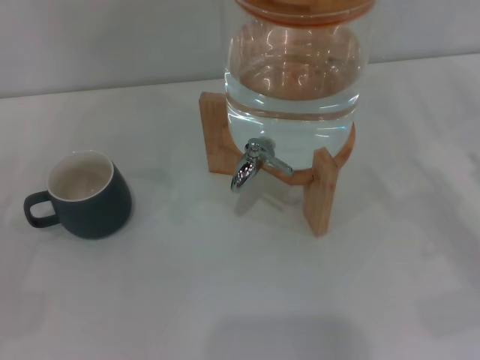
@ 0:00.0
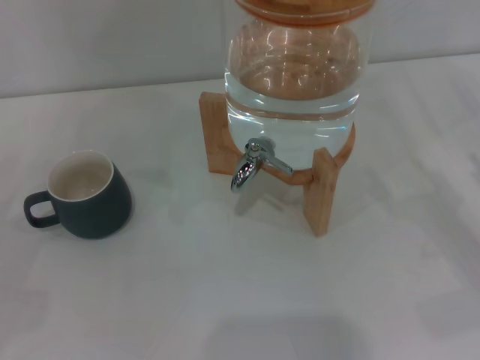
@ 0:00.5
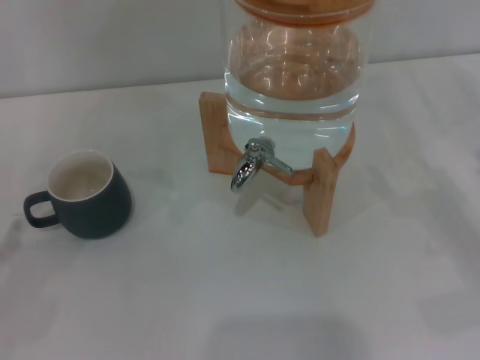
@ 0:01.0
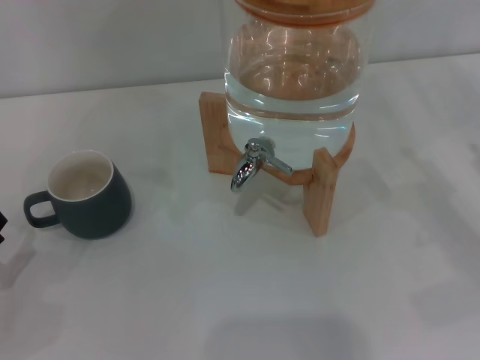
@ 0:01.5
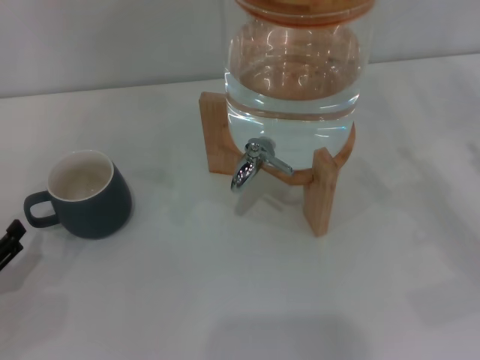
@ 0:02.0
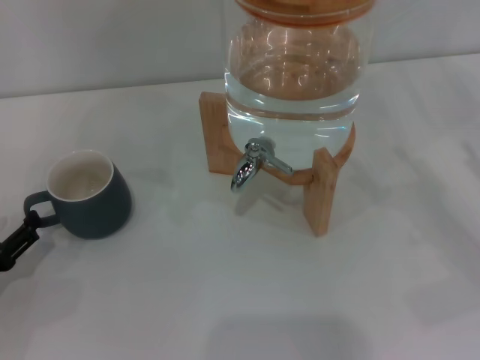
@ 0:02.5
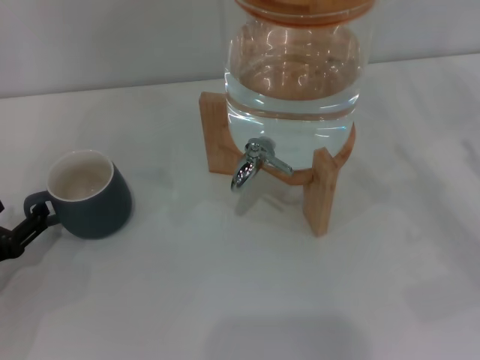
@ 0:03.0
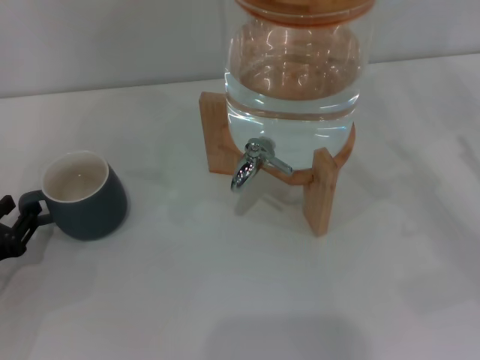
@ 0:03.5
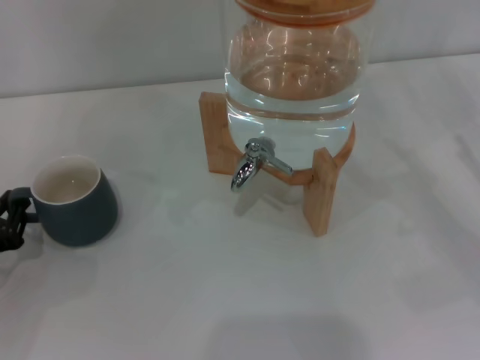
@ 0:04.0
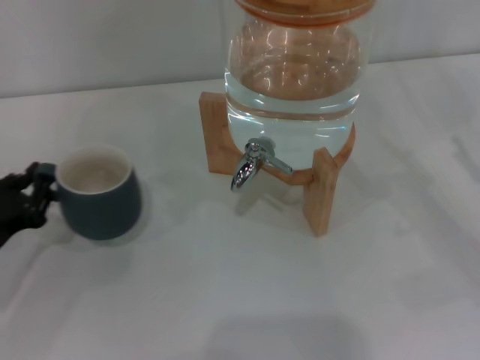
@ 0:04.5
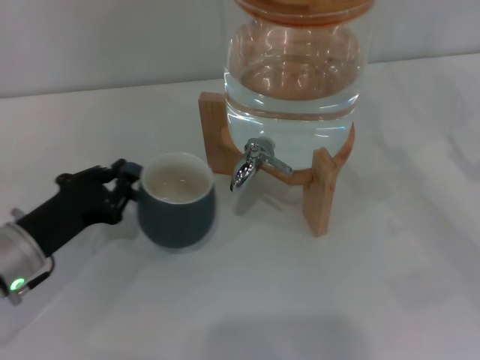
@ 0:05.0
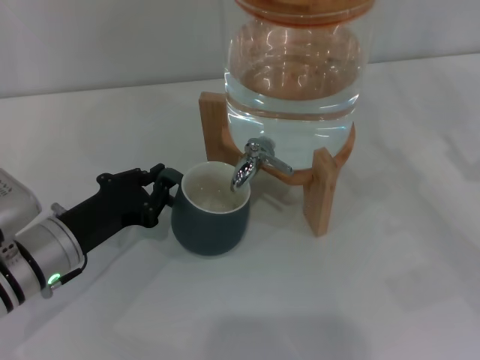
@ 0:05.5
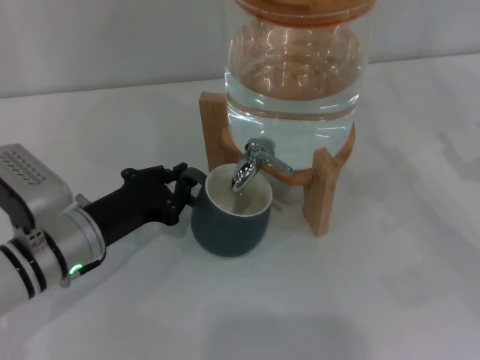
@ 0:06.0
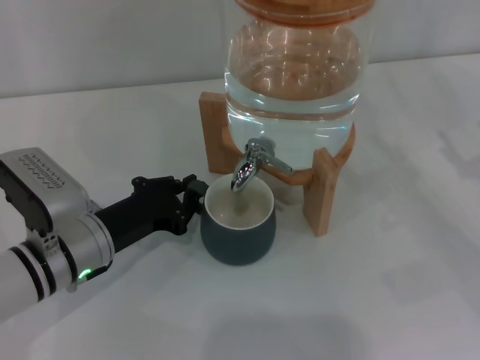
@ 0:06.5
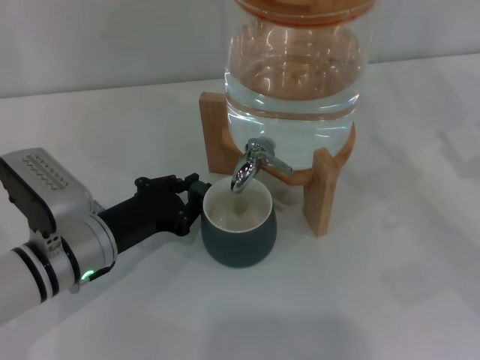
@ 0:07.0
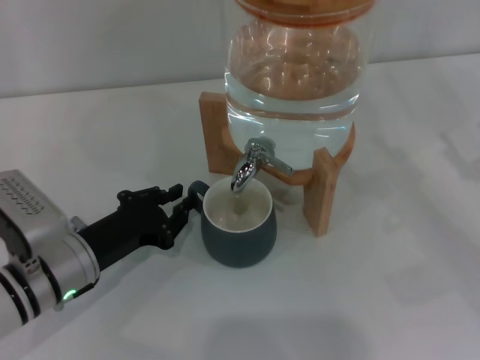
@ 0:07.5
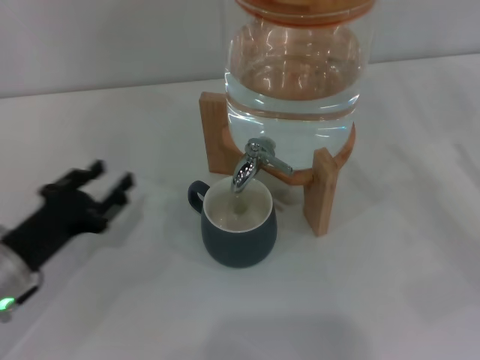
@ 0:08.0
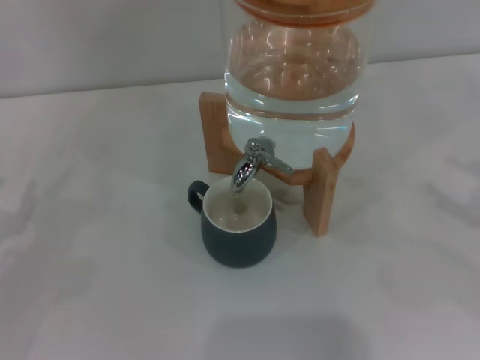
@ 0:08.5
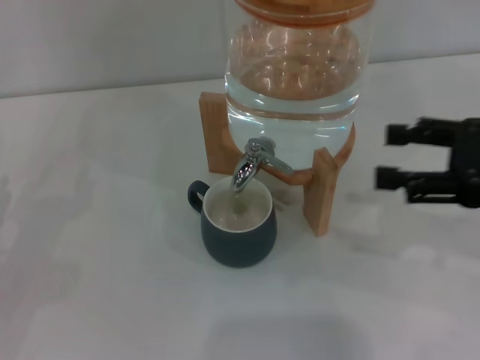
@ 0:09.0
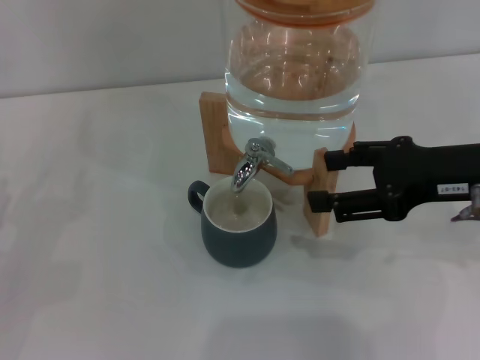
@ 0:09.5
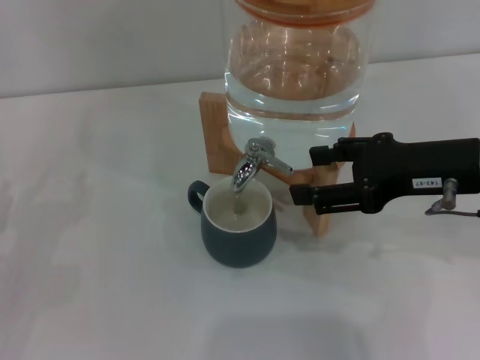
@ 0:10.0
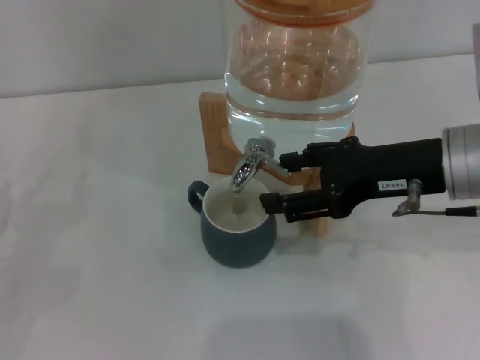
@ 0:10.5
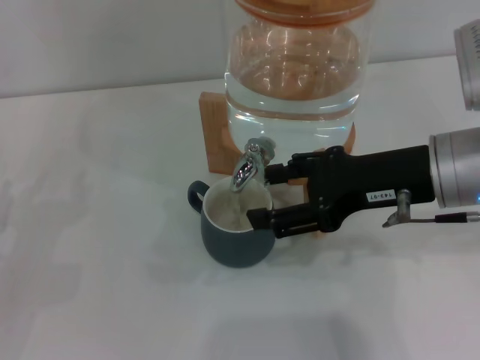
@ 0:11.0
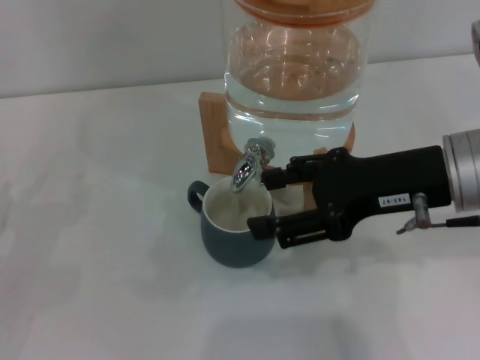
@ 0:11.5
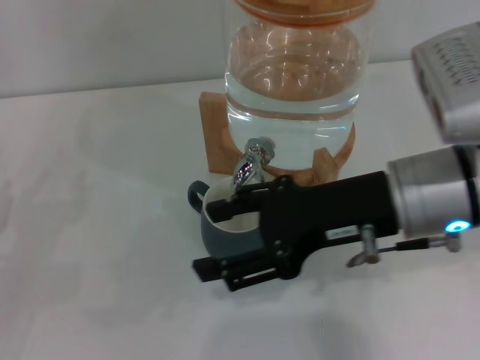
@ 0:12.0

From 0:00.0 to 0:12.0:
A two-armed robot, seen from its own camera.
Task of the whole recording: the left gripper pick up the black cup and place it horizontally under the faucet, the right gripper turn on the faucet to fill the cup, and then turn off the faucet.
Step, from 0:00.0 to 0:07.5: Move the cup beneath the water dispenser nozzle with the left gripper.
Step, from 0:08.0 to 0:11.0: Open the dispenser valve and fill the cup with water with the right gripper.
From 0:00.0 to 0:02.0: The left gripper moves roughly 5 cm.
From 0:02.0 to 0:04.0: The left gripper closes its fingers.
From 0:04.0 to 0:06.0: The left gripper is displaced to the right by roughly 15 cm.
From 0:06.0 to 0:08.0: The left gripper heads to the left, covering about 5 cm.
From 0:08.0 to 0:10.0: The left gripper travels to the left by some 10 cm, while the right gripper travels to the left and upward by about 20 cm.
From 0:10.0 to 0:12.0: The right gripper moves to the left, roughly 10 cm.

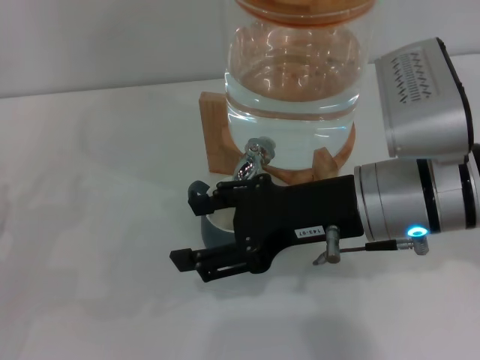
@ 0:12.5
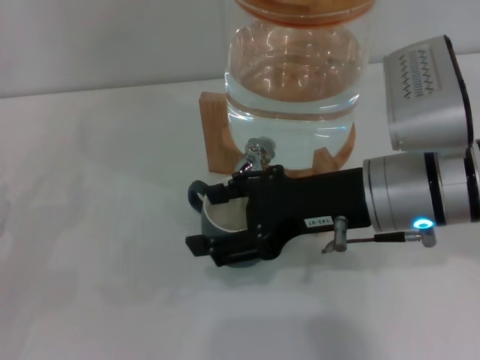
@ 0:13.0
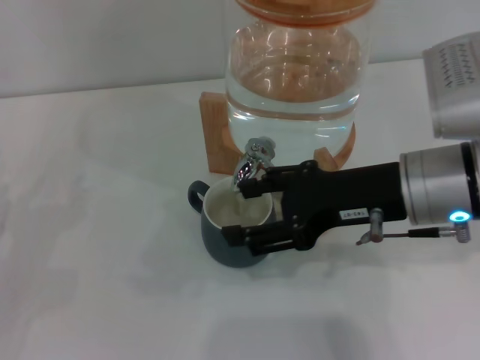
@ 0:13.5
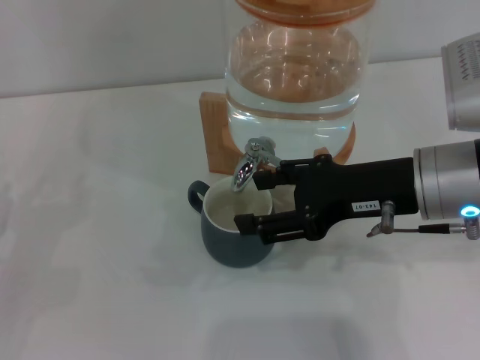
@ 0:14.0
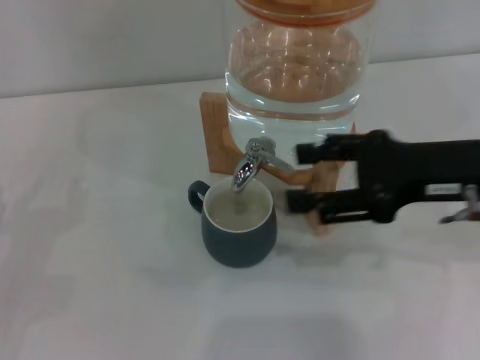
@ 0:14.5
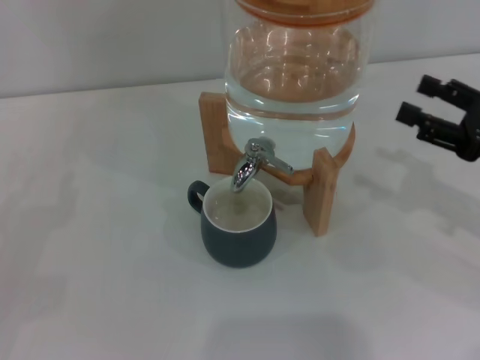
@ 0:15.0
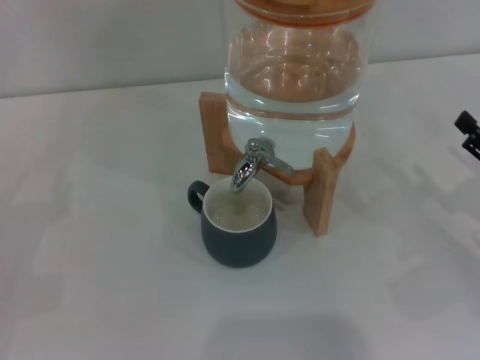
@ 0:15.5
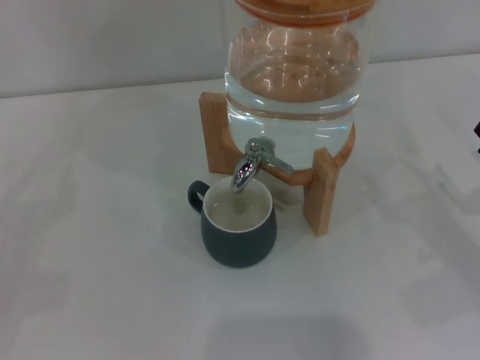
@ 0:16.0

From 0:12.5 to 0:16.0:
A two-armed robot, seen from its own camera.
Task of the whole recording: the left gripper pick up the black cup and place it horizontally under the faucet, the right gripper turn on the faucet to fill the cup, and then turn off the faucet.
Step, from 0:12.5 to 0:14.0: Close the dispenser valve with the right gripper.
From 0:12.5 to 0:14.5: The right gripper travels to the right by about 10 cm.
From 0:14.5 to 0:16.0: The right gripper shifts roughly 20 cm downward and to the right.
